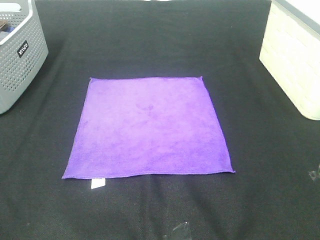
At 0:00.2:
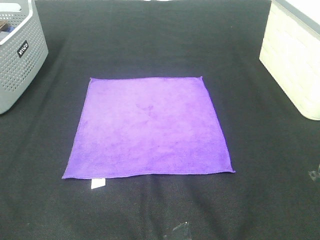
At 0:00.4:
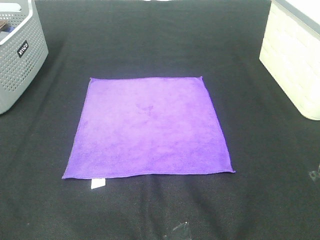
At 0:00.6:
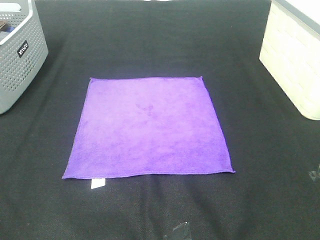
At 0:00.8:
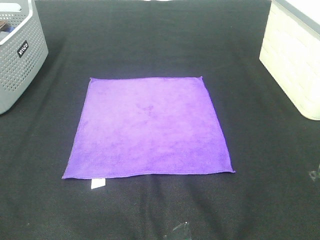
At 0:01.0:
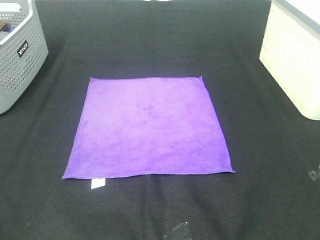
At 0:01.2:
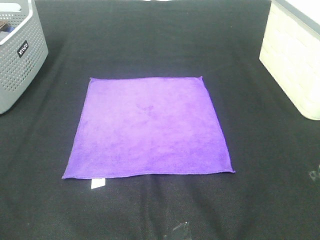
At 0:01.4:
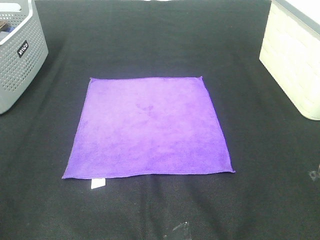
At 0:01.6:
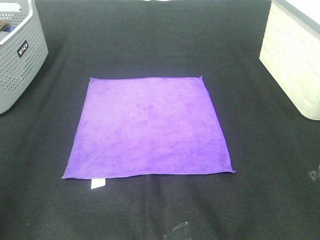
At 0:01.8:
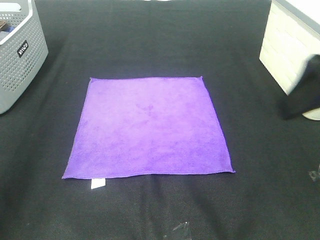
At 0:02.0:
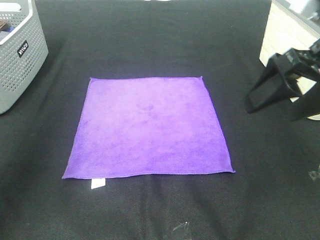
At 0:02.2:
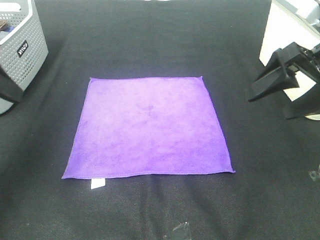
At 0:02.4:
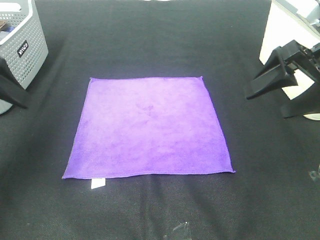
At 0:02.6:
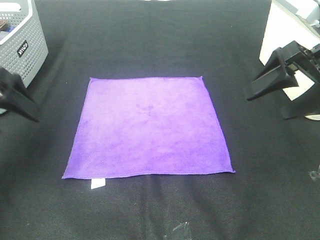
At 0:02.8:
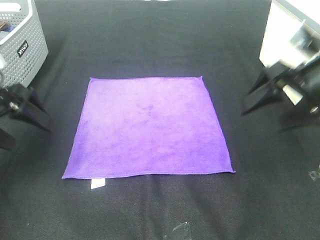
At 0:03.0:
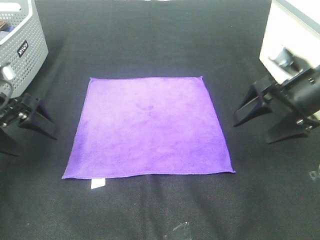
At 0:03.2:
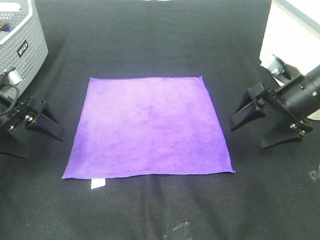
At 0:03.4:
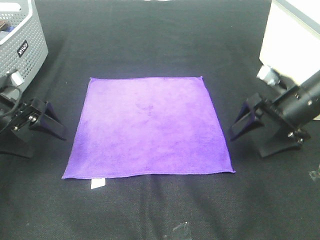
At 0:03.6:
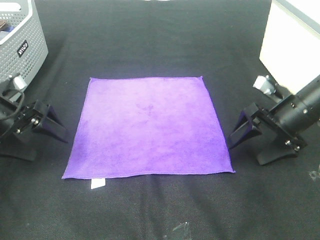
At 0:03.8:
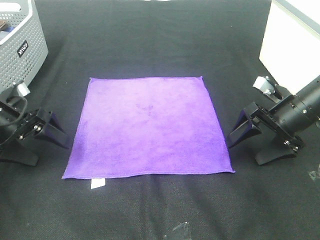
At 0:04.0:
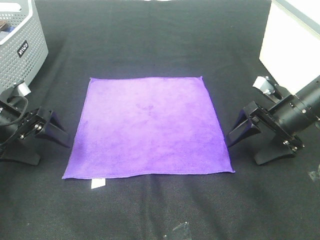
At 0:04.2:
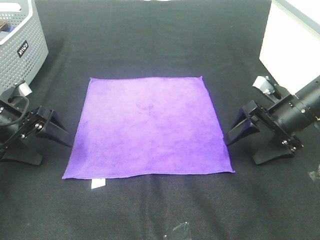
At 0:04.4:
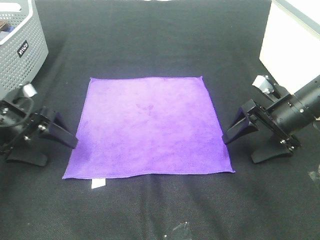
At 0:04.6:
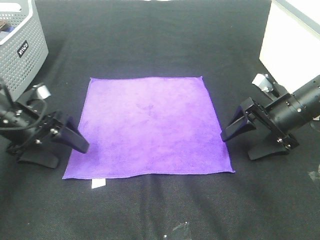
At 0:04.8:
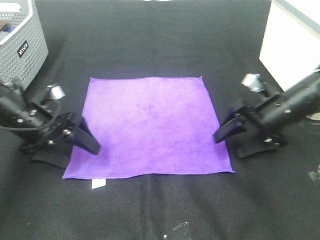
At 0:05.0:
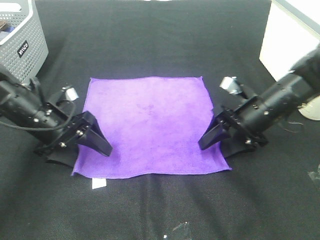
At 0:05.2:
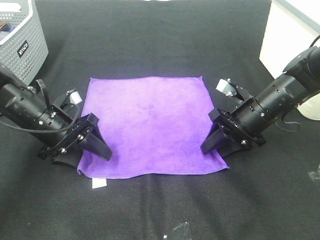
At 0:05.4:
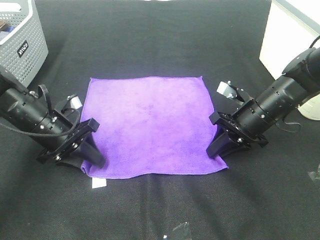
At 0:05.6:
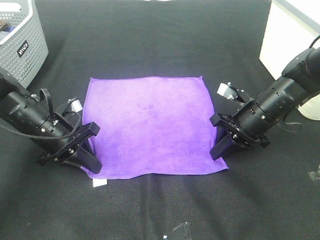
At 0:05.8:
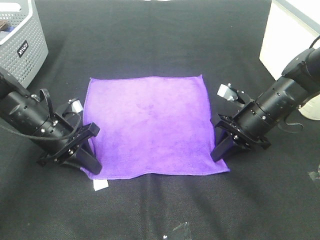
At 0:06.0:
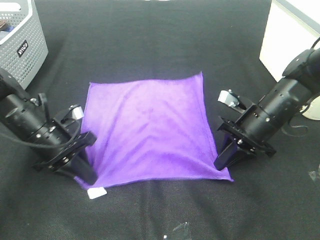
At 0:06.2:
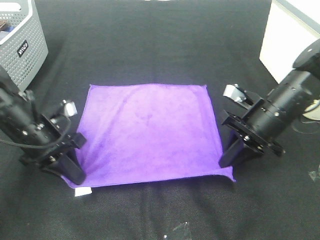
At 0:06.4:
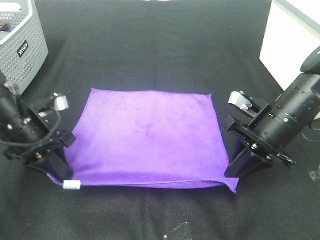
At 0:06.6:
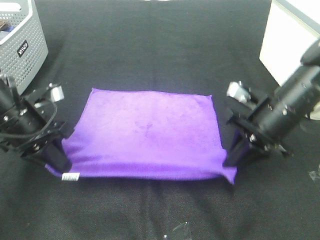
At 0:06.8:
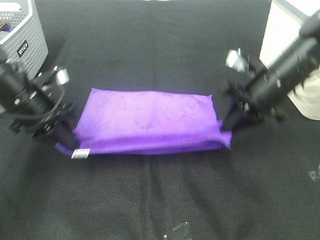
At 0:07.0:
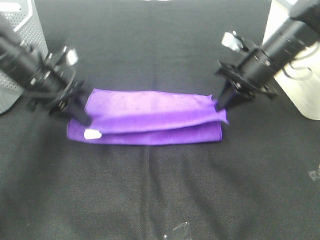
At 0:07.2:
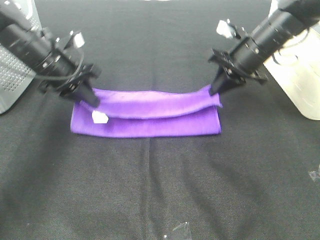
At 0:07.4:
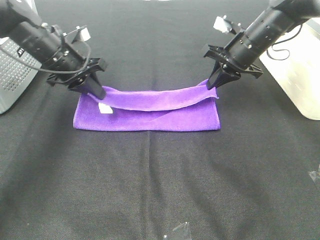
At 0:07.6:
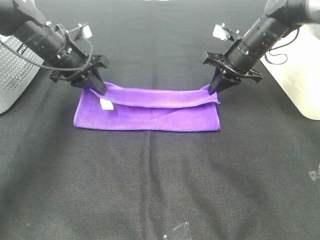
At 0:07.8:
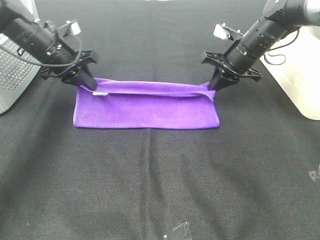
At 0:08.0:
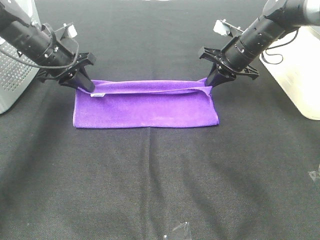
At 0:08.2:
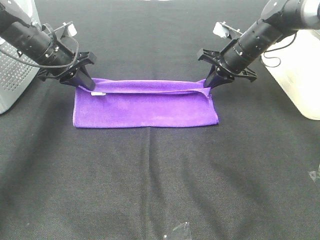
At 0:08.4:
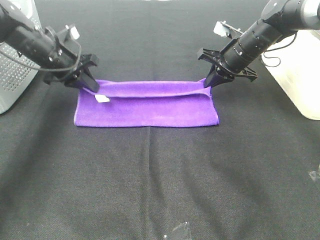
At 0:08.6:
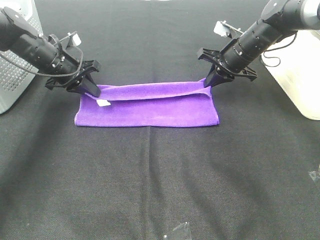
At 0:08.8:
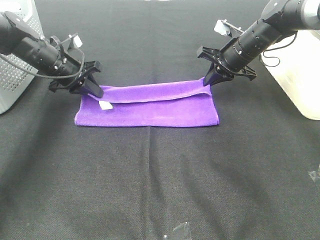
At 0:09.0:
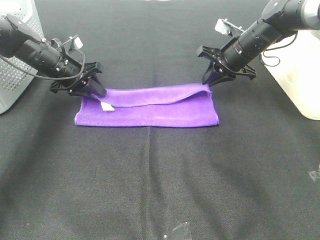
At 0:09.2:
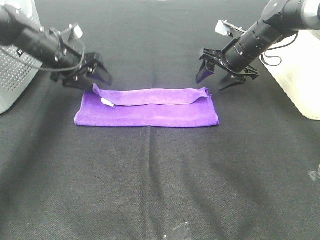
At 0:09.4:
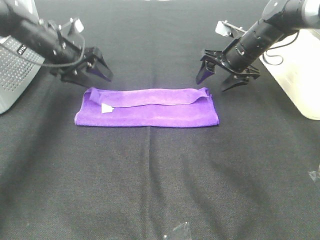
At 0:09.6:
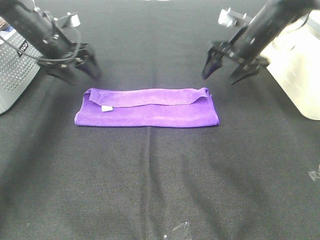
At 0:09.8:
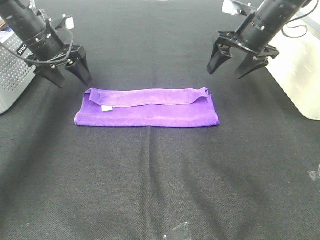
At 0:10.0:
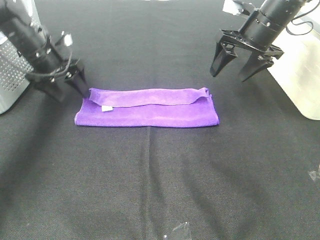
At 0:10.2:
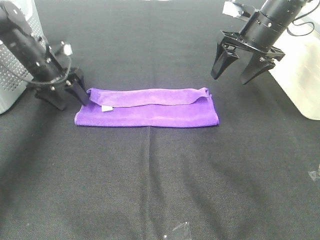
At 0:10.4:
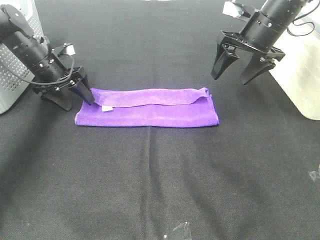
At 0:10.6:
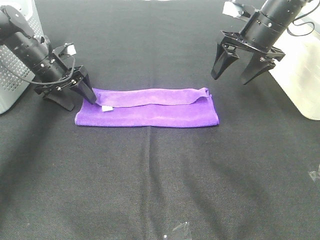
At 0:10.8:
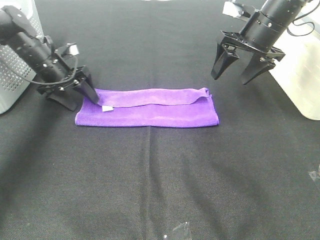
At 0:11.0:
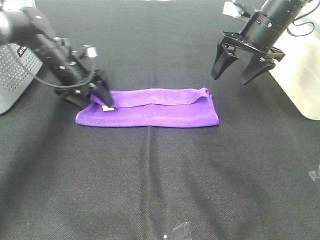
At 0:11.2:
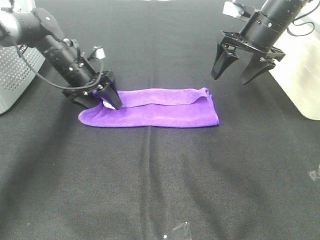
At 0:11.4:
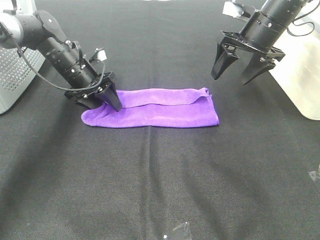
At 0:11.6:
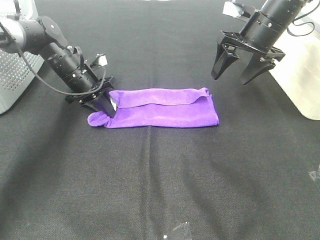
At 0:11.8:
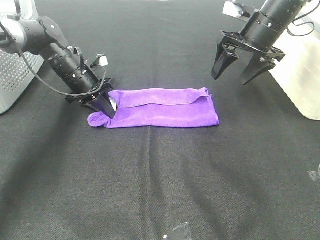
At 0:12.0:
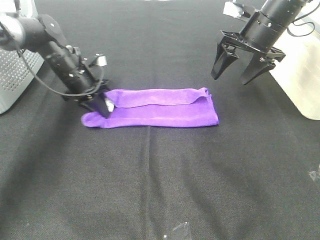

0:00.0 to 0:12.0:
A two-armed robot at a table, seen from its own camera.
Task of the whole recording: Fold towels.
Step, 0:00.0 to 0:05.8: Left hand: grab the bottom left corner of purple towel.
Step, 0:00.0 to 0:05.8: Right hand: grab the bottom right corner of purple towel.
Step, 0:06.0 to 0:08.8: Left hand: fold the purple towel up.
Step, 0:06.0 to 0:08.8: Right hand: fold the purple towel up.
0:01.6 to 0:03.0: Both grippers move downward and forward, about 25 cm.
0:03.0 to 0:04.4: Both grippers move downward, some 5 cm.
0:04.4 to 0:06.0: The left gripper goes about 5 cm to the right, and closes its fingers. Meanwhile the right gripper moves to the left, roughly 5 cm, and closes its fingers.
0:06.0 to 0:07.6: The right gripper heads forward, covering about 15 cm; the left gripper is displaced forward and upward by some 15 cm.
0:07.6 to 0:09.0: The left gripper shifts by approximately 5 cm, and opens its fingers.
0:09.0 to 0:10.4: The right gripper shifts about 10 cm upward, and opens, while the left gripper opens its fingers.
0:10.4 to 0:12.0: The left gripper heads to the right, covering some 5 cm, and closes its fingers.

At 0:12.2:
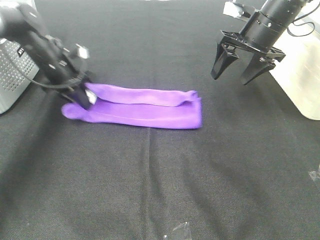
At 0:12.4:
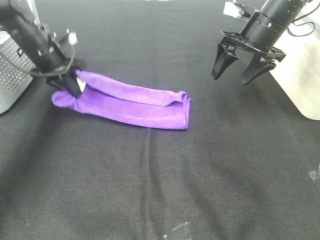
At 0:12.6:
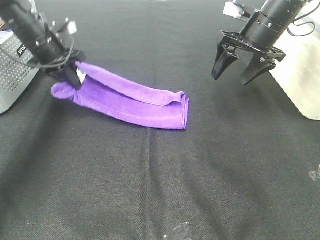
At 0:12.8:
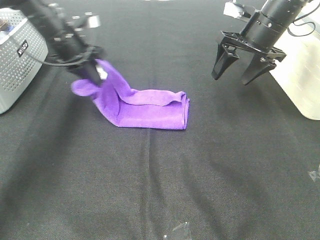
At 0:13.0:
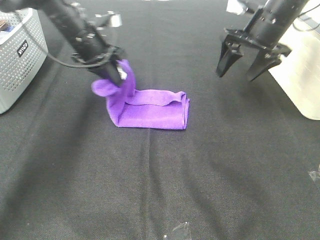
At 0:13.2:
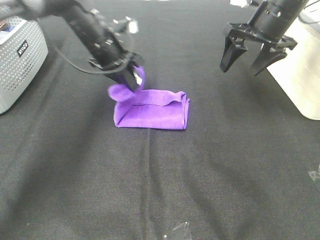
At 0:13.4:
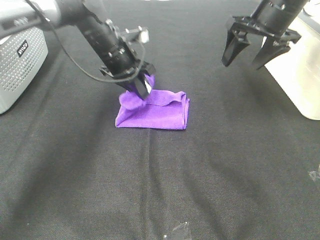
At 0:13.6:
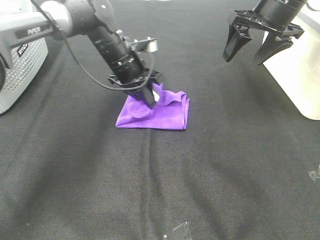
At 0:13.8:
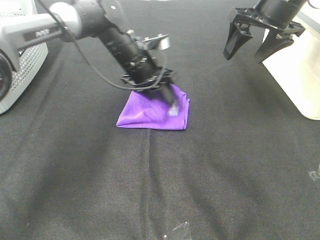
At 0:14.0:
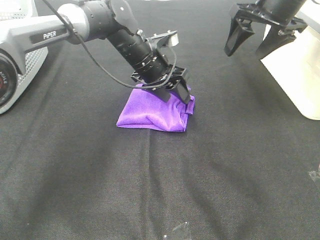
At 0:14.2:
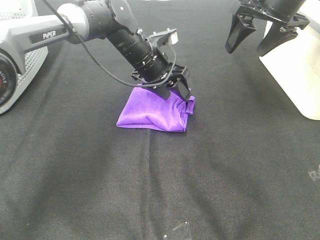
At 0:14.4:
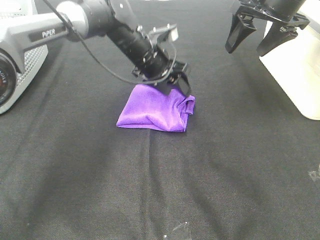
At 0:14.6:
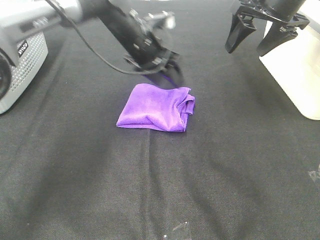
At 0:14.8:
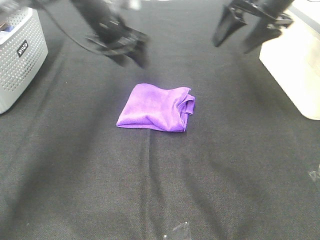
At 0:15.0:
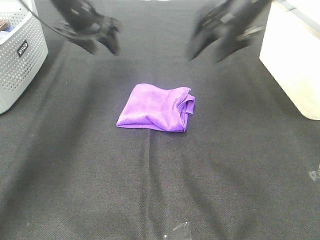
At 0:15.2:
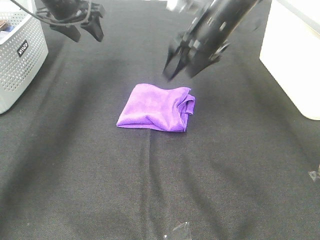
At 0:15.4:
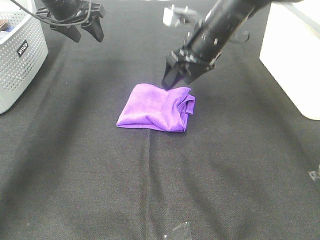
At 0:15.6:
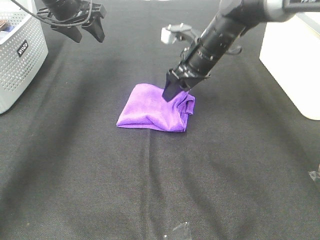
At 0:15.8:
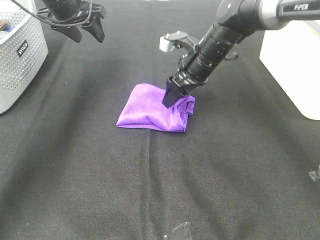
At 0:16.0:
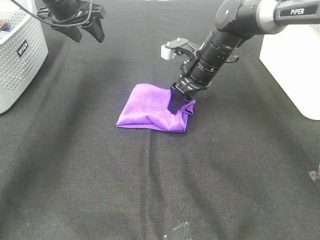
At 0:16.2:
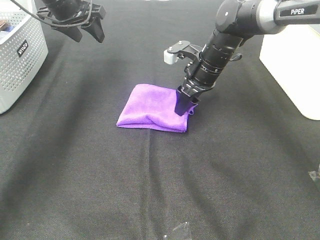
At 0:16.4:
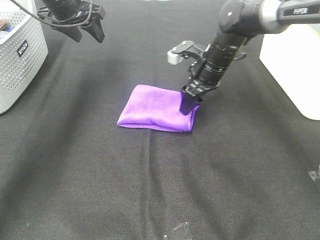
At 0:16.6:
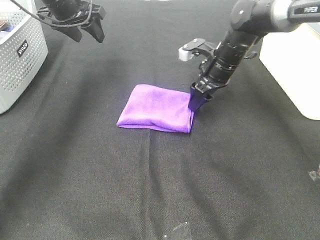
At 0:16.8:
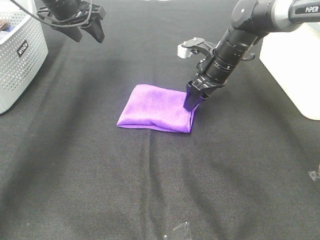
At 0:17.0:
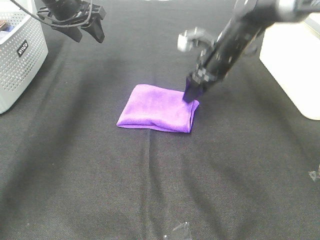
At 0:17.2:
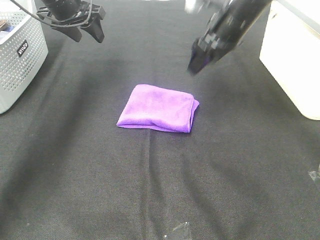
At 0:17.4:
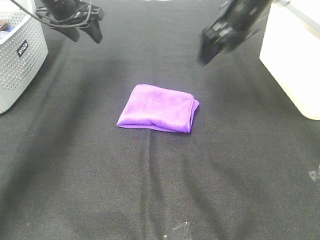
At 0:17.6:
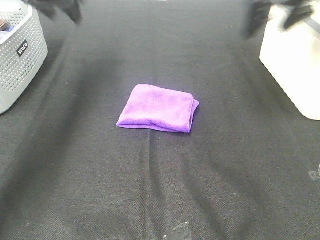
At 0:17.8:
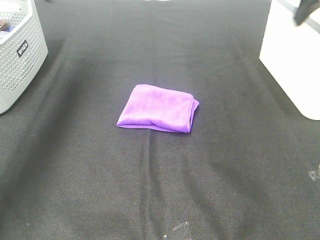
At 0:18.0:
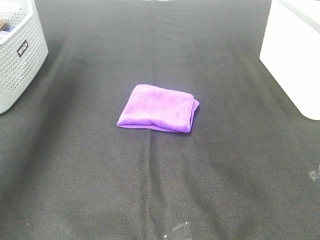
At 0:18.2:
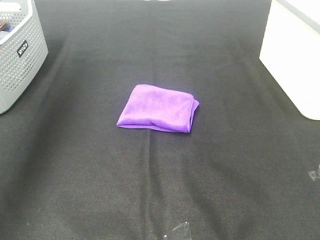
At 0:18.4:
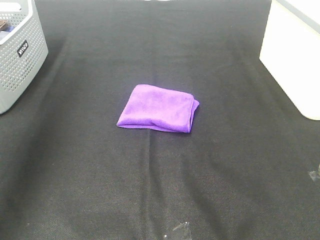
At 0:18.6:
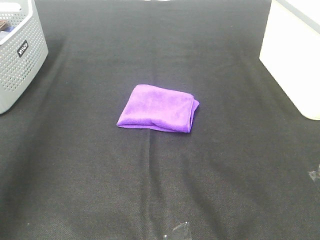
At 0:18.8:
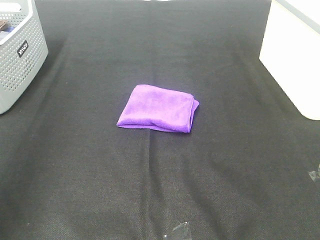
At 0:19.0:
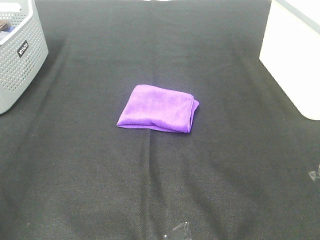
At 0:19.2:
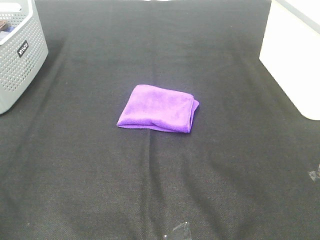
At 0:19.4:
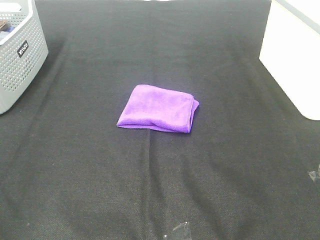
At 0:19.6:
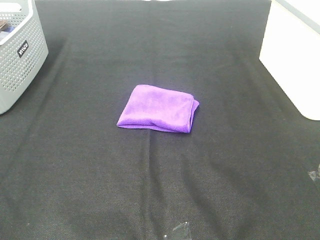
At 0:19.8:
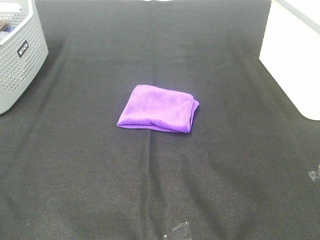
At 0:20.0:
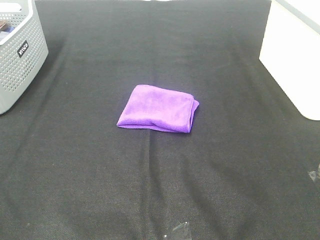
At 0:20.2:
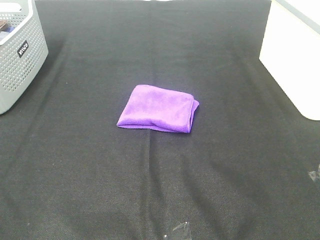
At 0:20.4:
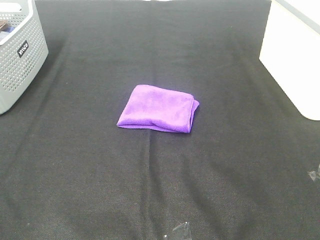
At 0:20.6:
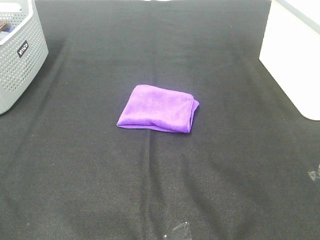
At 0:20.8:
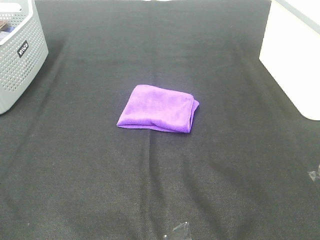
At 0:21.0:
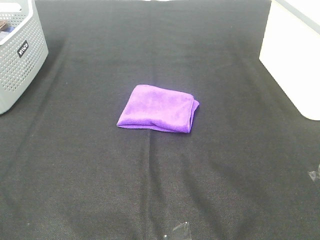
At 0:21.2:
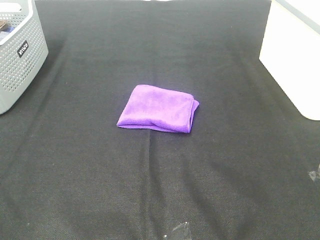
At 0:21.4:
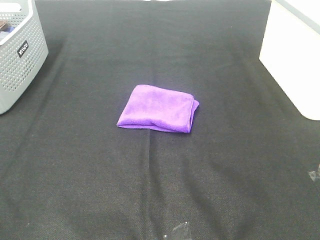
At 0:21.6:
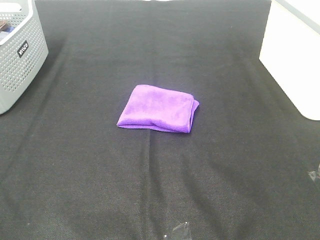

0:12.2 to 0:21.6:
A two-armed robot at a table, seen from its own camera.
Task of the whole recording: Fold towels.
Step, 0:13.8 to 0:16.0: Right hand: adjust the purple towel.
0:12.2 to 0:13.8: The left gripper travels to the right by about 20 cm, and opens its fingers, while the right gripper shifts approximately 5 cm upward.
0:13.8 to 0:15.4: The right gripper shifts some 15 cm to the left and downward. Meanwhile the left gripper is displaced to the left and upward by about 20 cm.
0:17.0 to 0:18.4: The right gripper travels backward, upward and to the right by about 40 cm. Meanwhile the left gripper goes about 30 cm backward and upward.
0:18.4 to 0:20.0: The left gripper shifts approximately 30 cm backward and downward.
0:20.0 to 0:21.6: Both grippers stay put.
